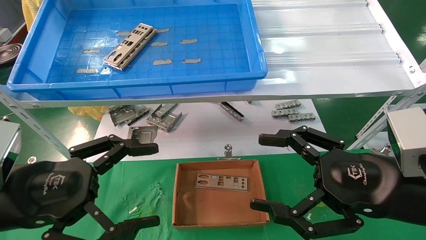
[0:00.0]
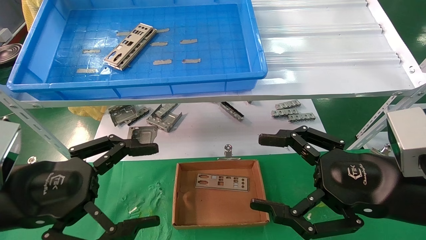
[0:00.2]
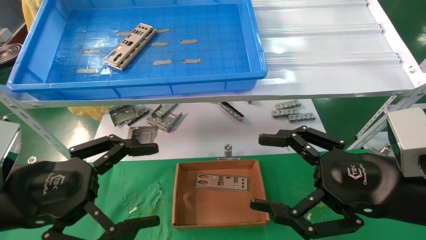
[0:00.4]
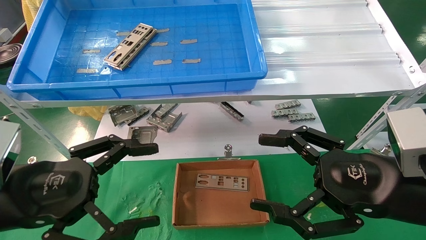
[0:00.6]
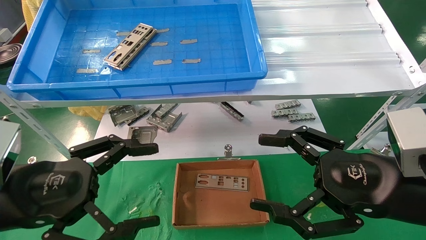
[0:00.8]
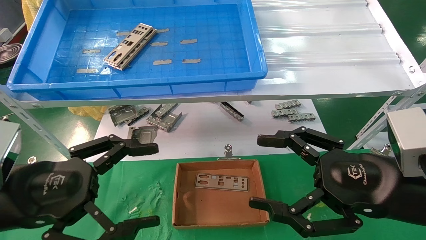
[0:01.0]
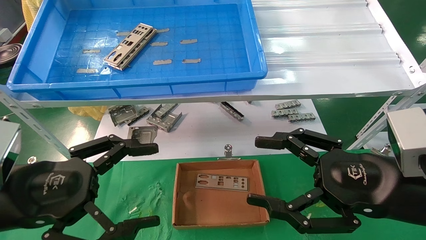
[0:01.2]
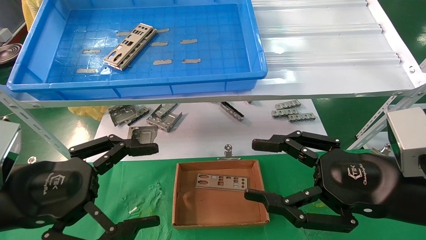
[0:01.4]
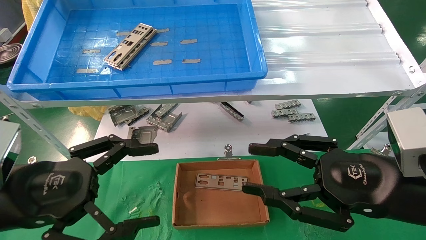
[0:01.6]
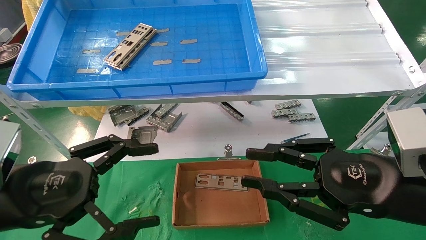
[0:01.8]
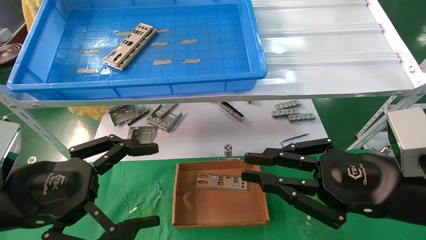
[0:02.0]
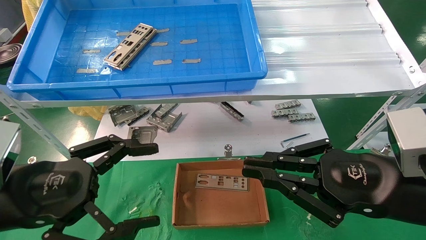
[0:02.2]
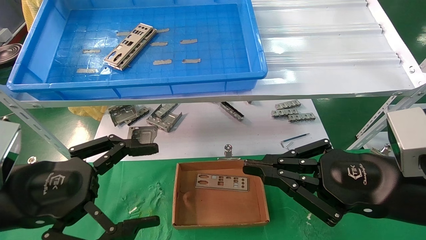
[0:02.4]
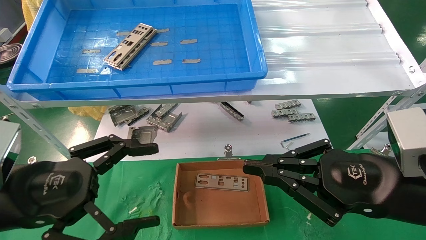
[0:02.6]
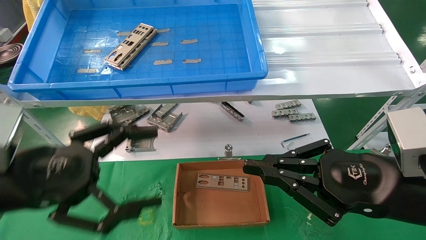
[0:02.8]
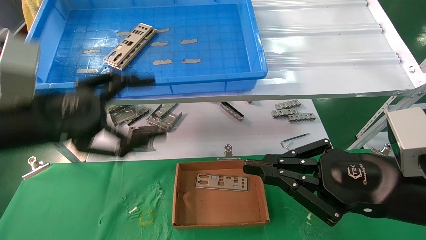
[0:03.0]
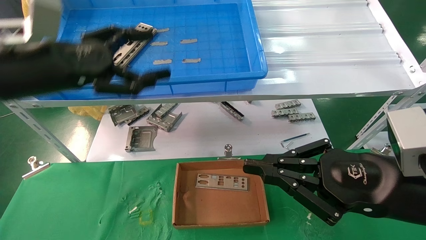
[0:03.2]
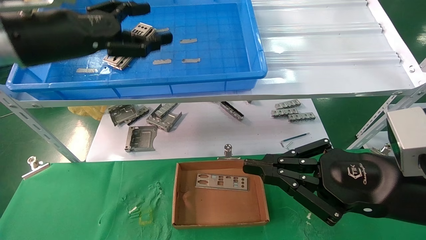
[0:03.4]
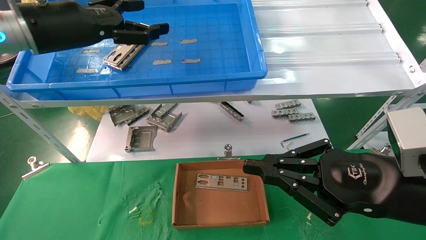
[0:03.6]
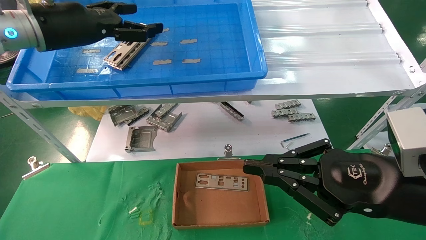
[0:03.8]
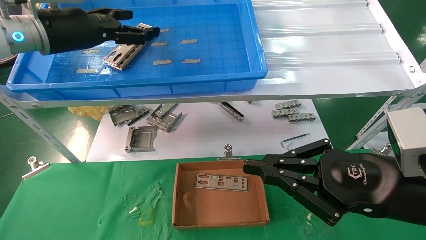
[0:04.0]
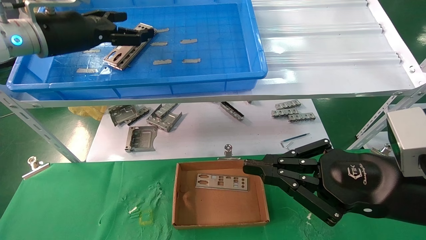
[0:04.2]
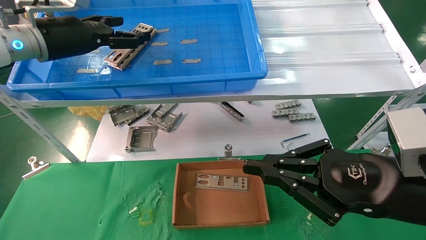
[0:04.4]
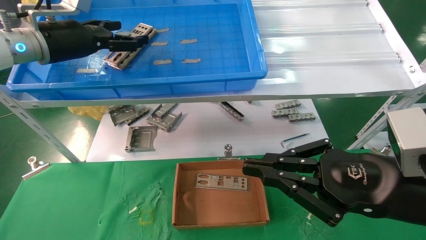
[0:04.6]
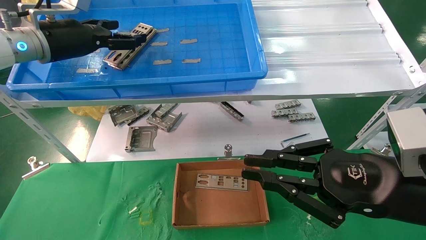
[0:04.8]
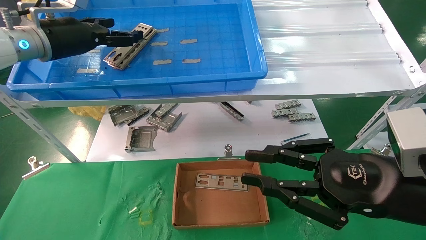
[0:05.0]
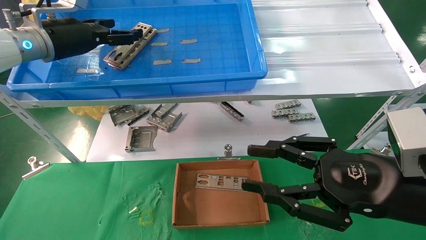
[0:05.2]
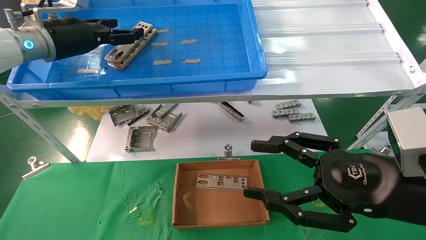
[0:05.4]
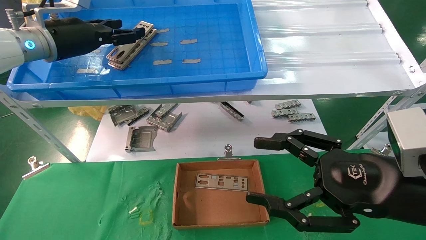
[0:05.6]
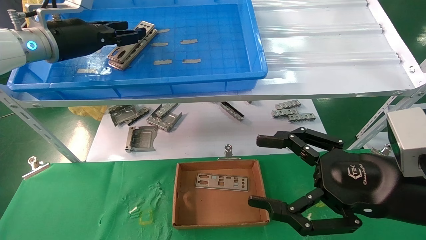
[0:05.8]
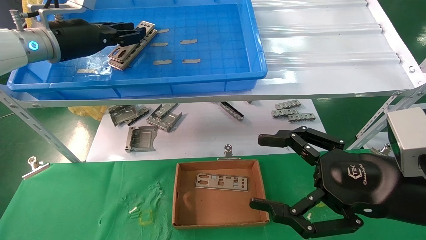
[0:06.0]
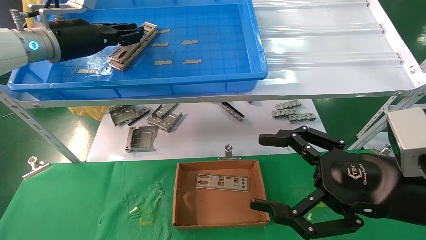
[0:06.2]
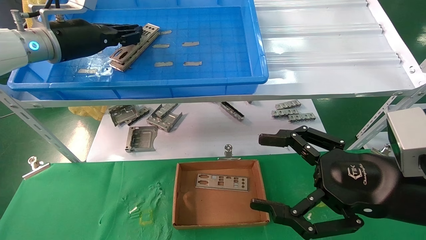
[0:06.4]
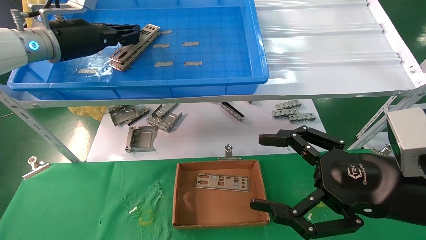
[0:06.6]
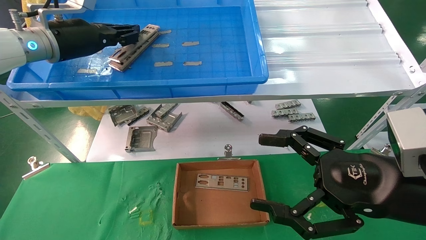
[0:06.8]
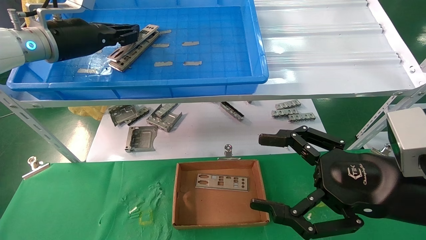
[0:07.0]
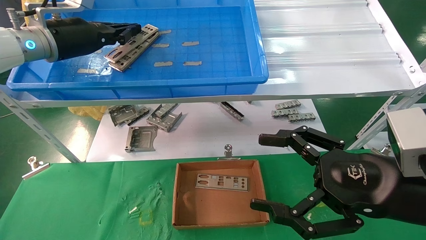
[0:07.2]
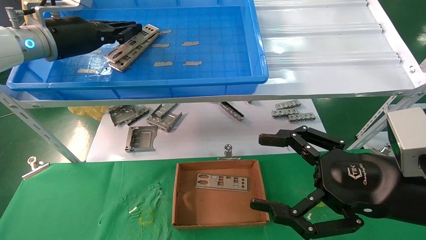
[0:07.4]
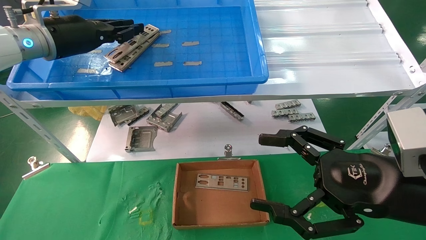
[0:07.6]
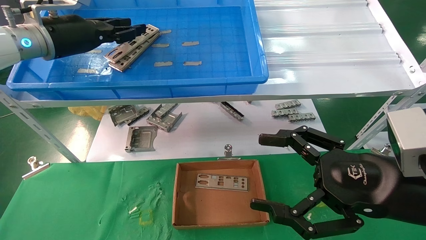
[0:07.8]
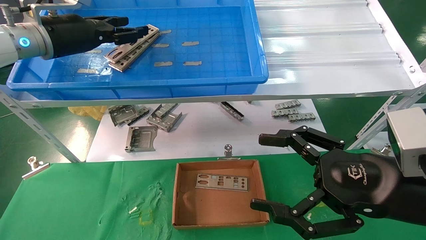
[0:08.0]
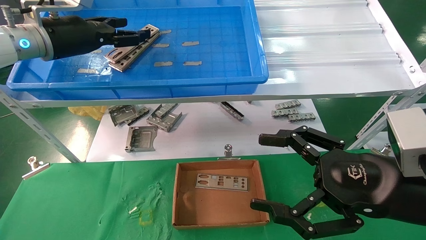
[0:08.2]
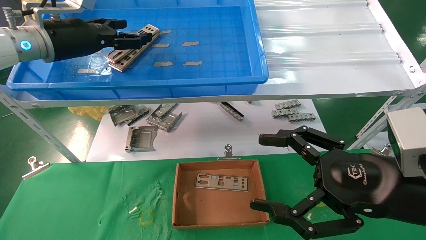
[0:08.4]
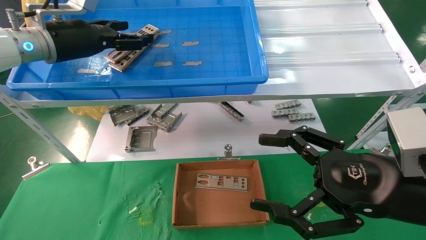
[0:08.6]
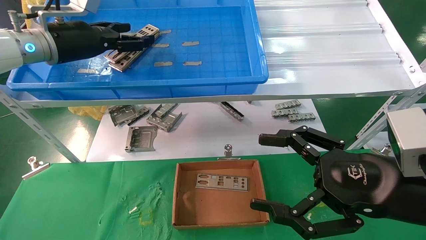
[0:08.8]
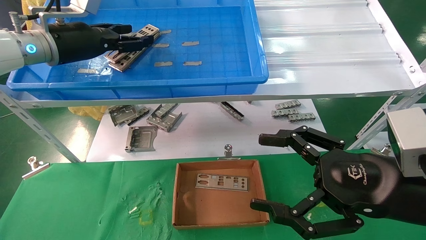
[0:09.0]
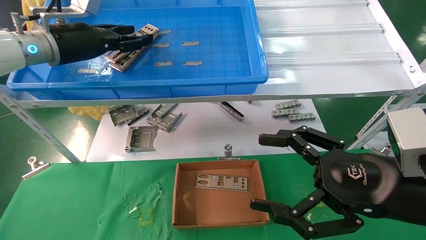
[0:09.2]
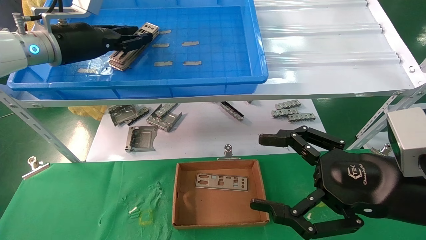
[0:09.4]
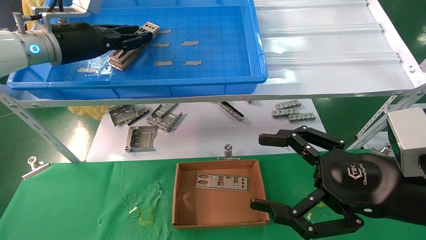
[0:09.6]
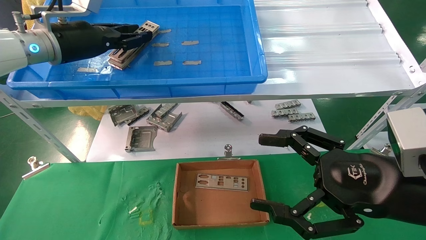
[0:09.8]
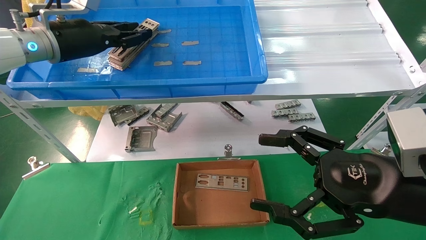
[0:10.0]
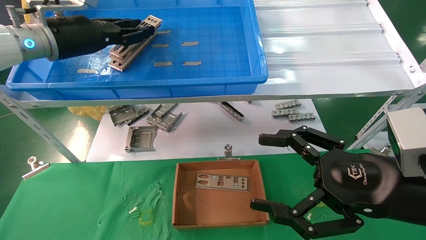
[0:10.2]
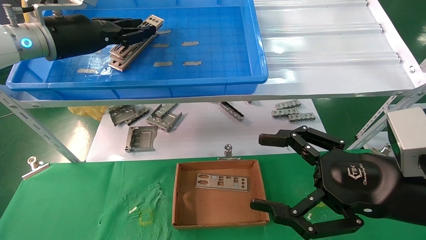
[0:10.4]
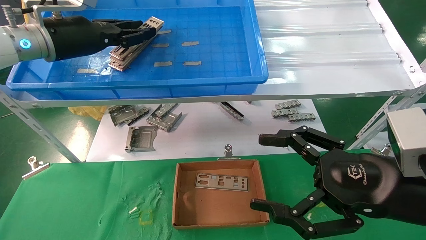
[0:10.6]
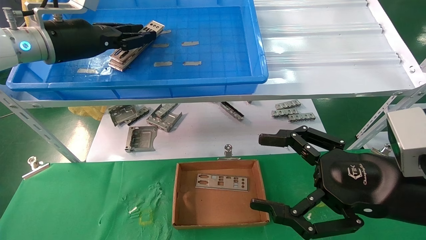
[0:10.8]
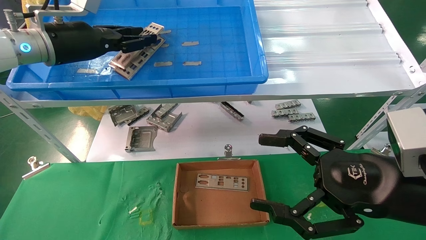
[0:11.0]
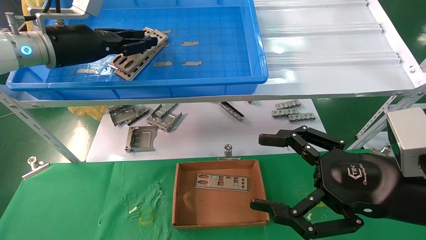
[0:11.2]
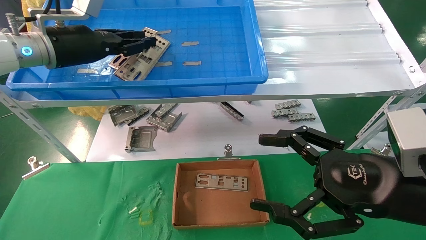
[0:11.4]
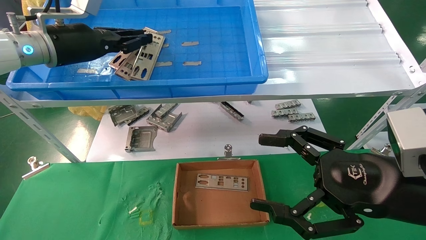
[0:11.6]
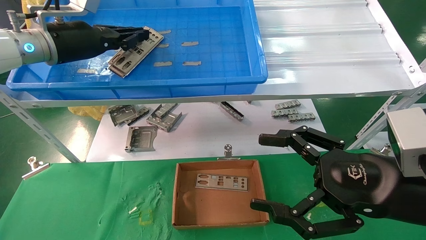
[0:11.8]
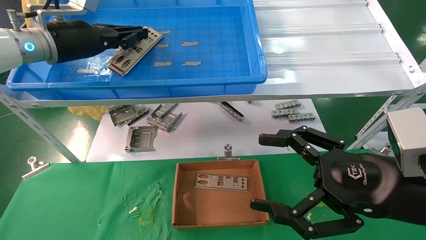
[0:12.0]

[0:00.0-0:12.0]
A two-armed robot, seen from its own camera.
Task of the whole recording: pick up the parts on the tray and put them in the cardboard box.
0:00.0 to 0:01.6: The right gripper closes.
0:01.6 to 0:03.0: The right gripper closes up, while the left gripper goes some 10 cm upward and forward.
0:03.0 to 0:04.4: The left gripper goes approximately 20 cm forward and upward.
0:04.4 to 0:06.0: The right gripper opens. Meanwhile the left gripper closes its fingers.
0:06.0 to 0:07.6: Both grippers stay put.
0:07.6 to 0:09.0: The left gripper opens its fingers.
0:09.0 to 0:10.4: The left gripper closes its fingers.
0:10.4 to 0:12.0: Both grippers stay put.

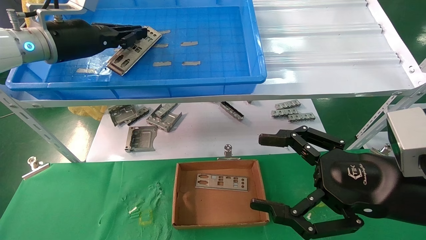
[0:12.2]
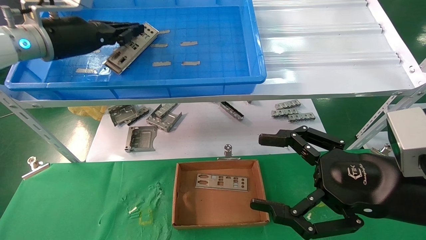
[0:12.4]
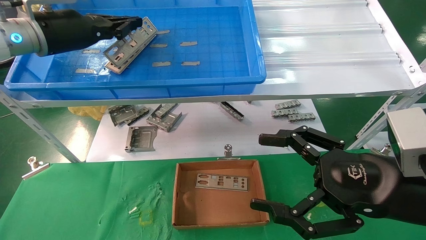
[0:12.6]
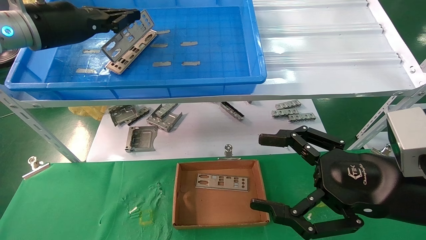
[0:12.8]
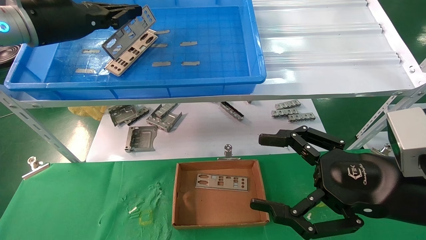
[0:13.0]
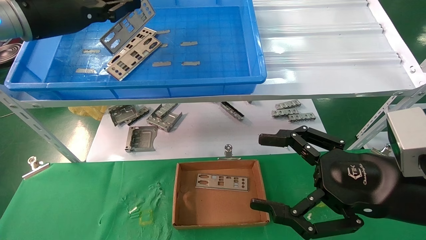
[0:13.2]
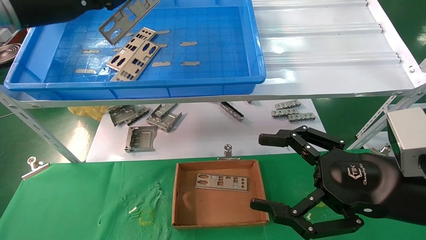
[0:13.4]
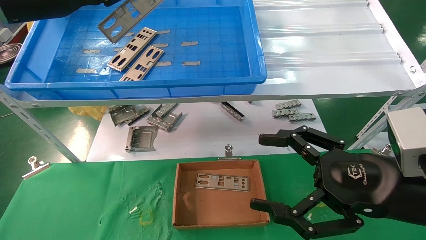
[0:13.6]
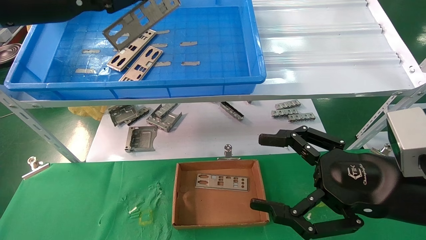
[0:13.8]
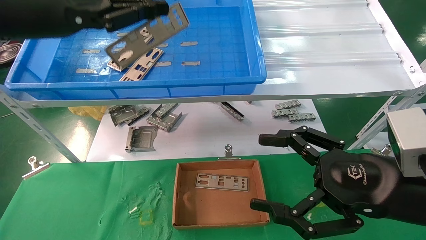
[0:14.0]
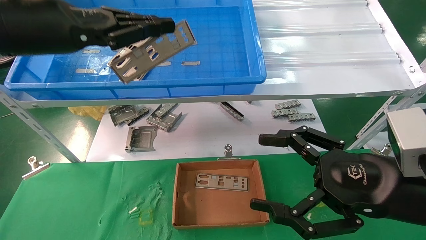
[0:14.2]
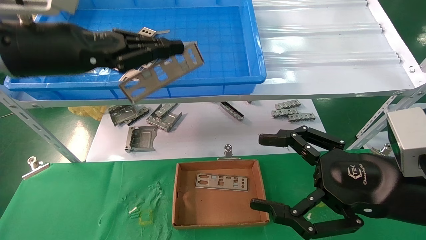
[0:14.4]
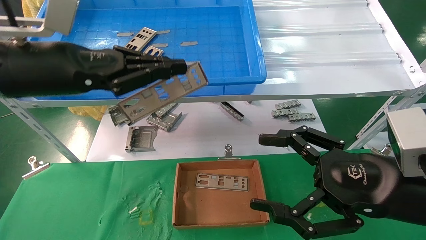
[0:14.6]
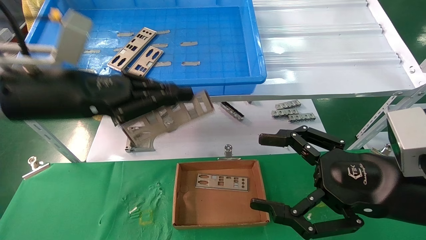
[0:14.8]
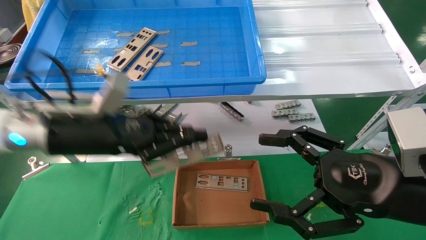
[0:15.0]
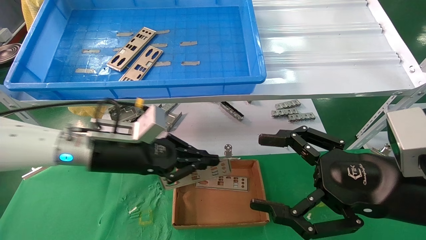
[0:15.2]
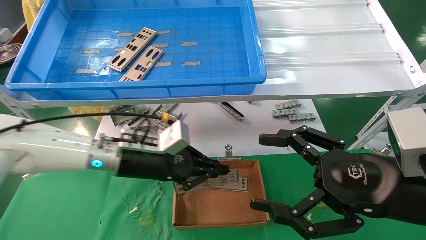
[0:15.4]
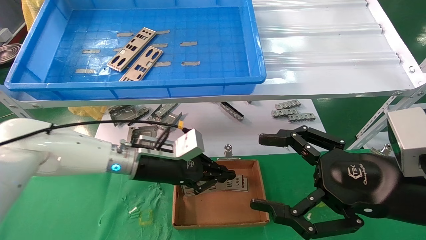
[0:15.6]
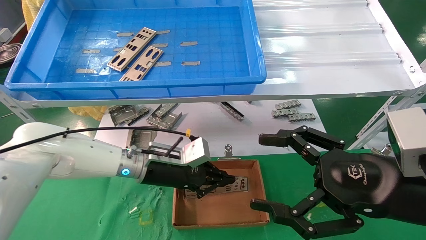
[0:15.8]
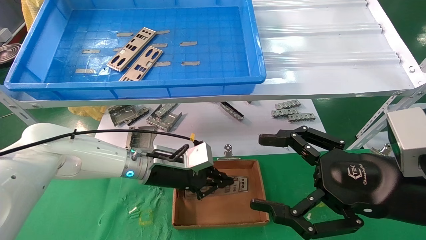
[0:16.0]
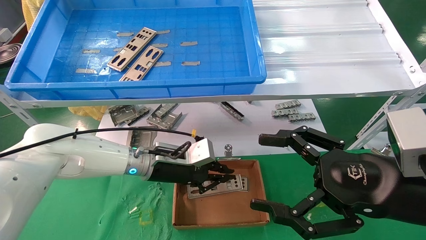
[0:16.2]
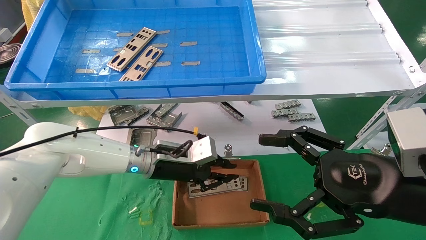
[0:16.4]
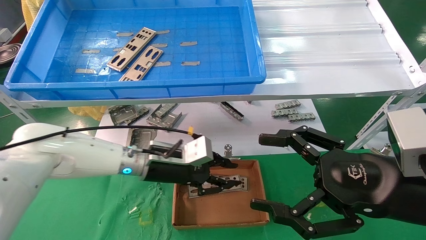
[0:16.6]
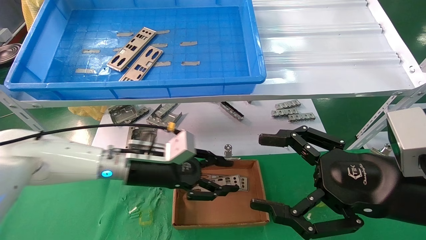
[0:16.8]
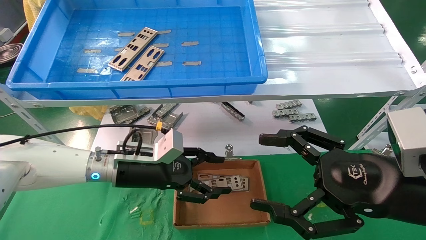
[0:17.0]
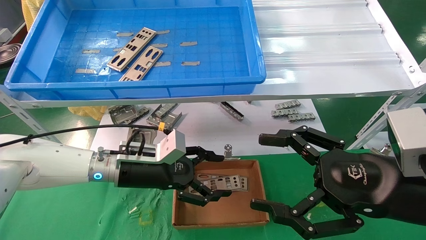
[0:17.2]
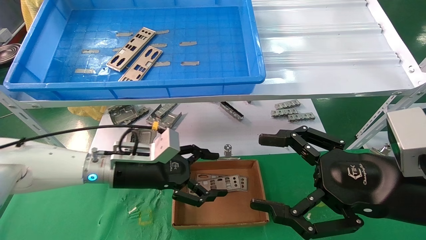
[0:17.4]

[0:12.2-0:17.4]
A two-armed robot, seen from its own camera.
Task of the whole recording: pick up the parts on the tray and put them in the cardboard box.
Step, 0:12.4 to 0:16.2: Place the IO bracket into the ingredient slot.
0:12.2 to 0:14.0: The left gripper moves backward, some 10 cm.
0:14.0 to 0:15.6: The left gripper shifts about 30 cm downward and to the right.
0:15.6 to 0:17.4: The left gripper opens.
